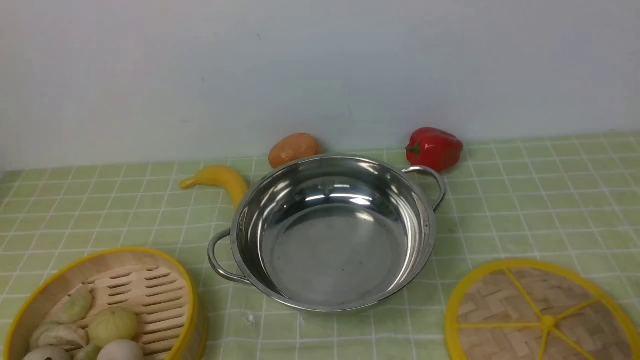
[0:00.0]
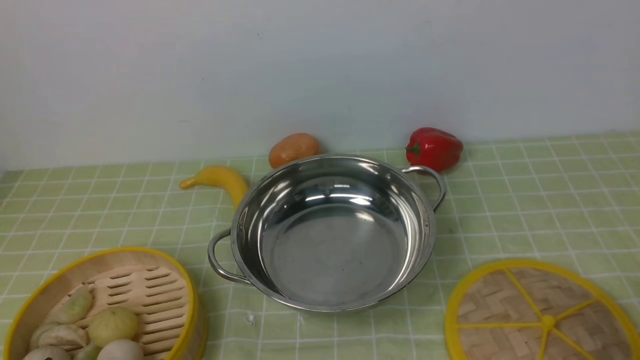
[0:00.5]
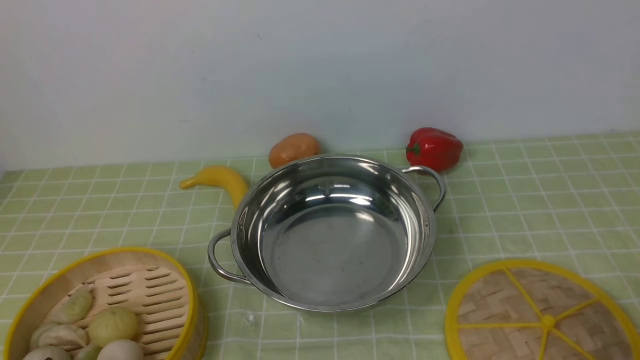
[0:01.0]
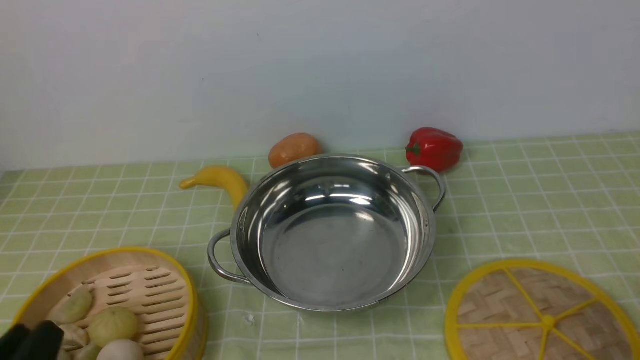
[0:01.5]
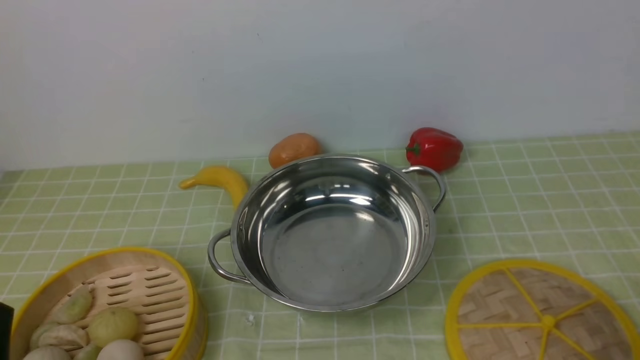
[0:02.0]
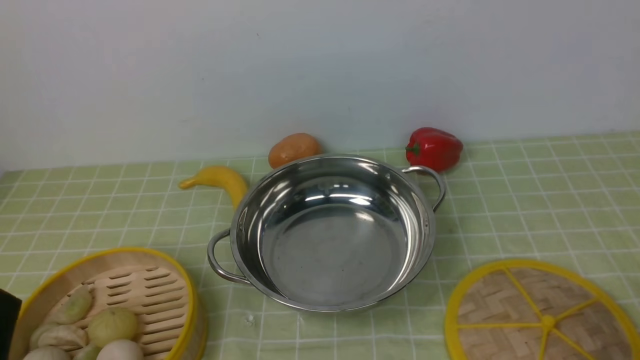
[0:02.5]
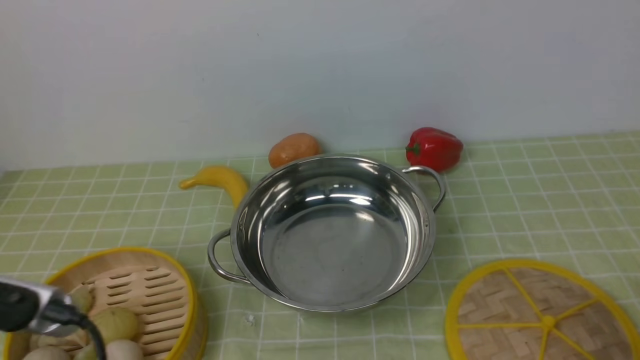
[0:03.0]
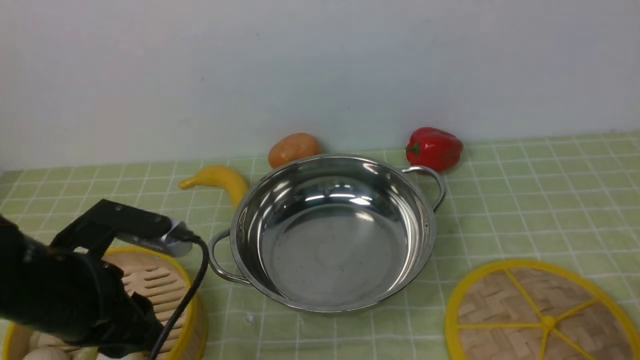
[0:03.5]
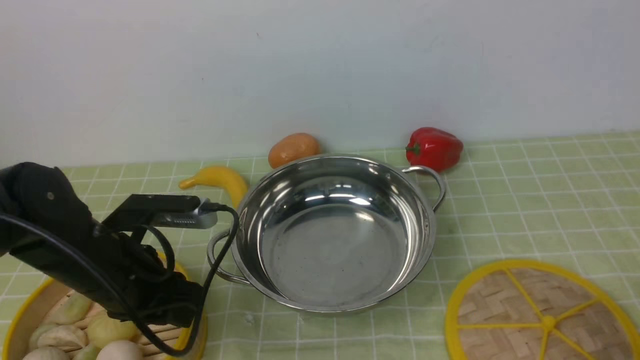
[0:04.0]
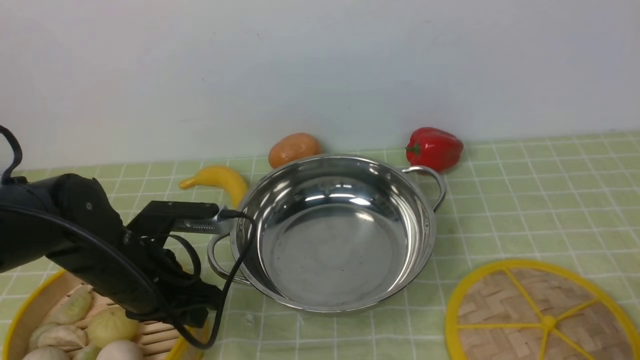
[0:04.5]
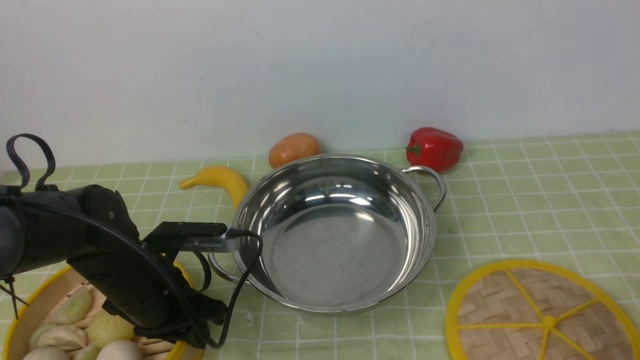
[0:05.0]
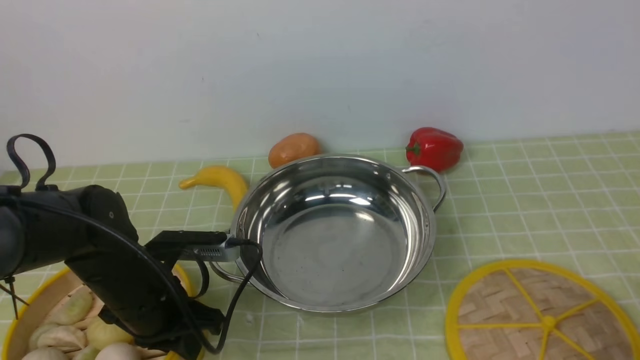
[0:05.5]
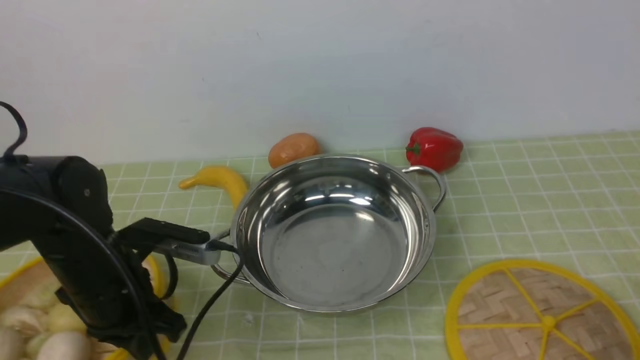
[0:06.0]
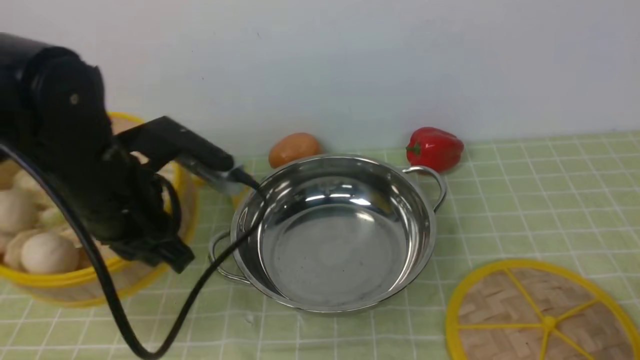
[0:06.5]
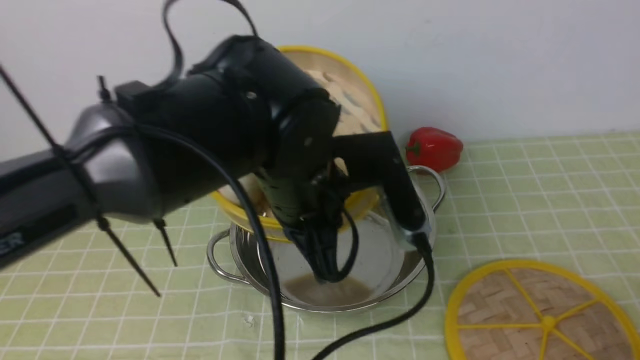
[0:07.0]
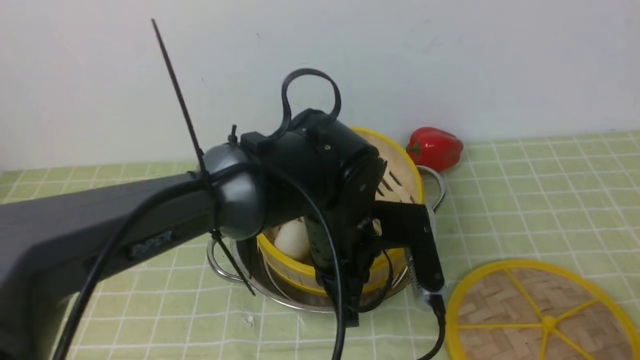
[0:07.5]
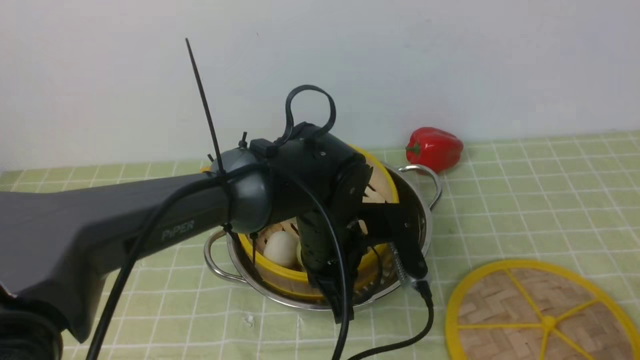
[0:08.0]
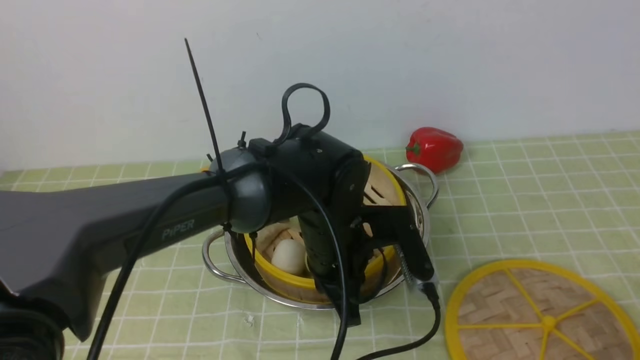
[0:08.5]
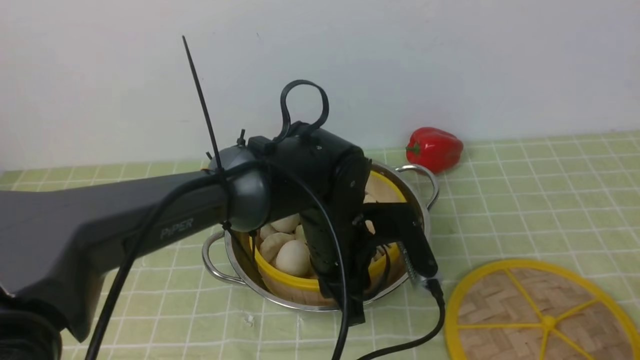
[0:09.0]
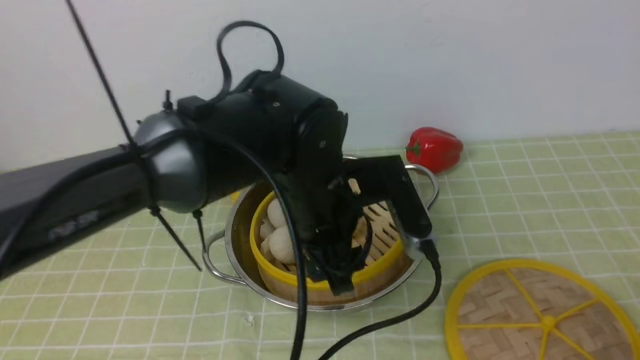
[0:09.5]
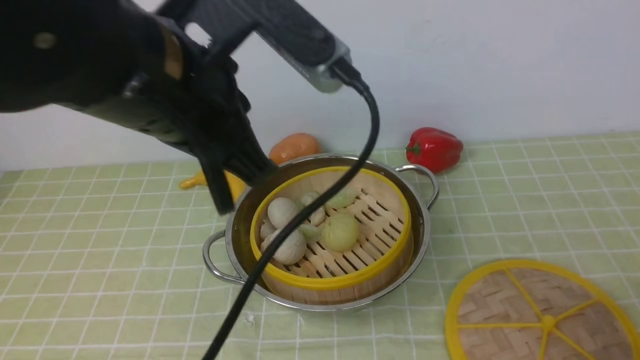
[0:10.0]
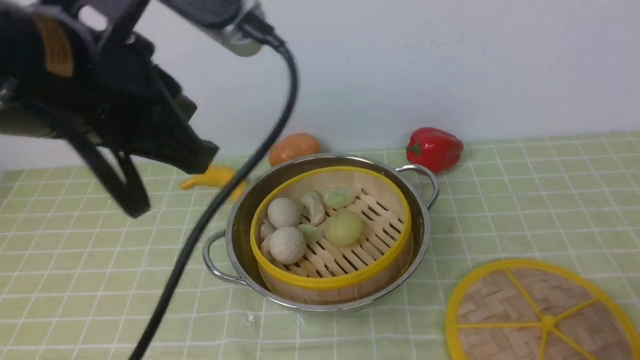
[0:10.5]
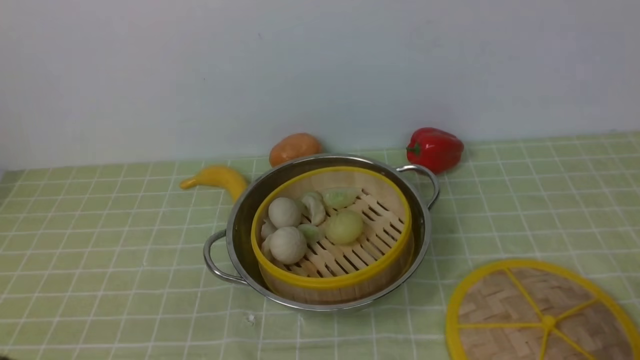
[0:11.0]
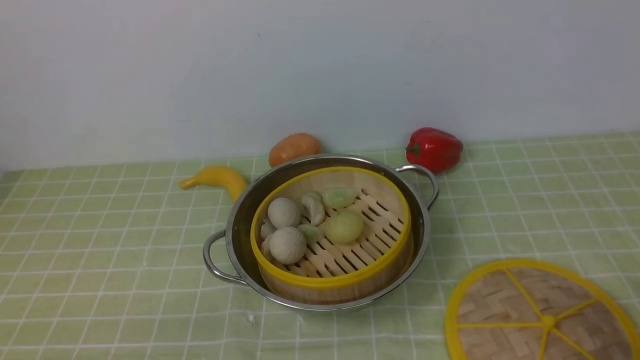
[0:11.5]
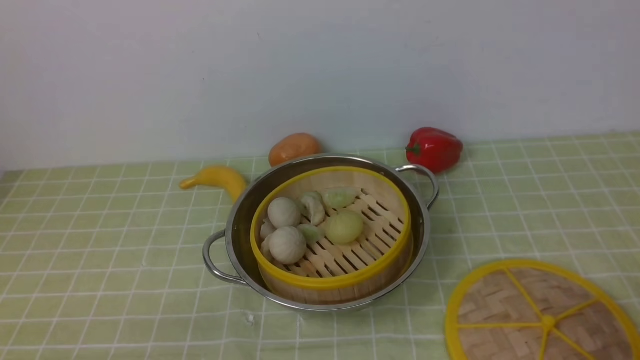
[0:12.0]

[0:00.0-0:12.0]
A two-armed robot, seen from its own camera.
Task of the whole recording: place the steamer in the pot on the green tablecloth, and put the lid on the steamer.
Step, 0:00.0 to 0:06.5: use the left arm to lift the steamer closest to it.
Step, 0:07.0 to 0:10.0: use the left arm to put the steamer into the iron steamer pot in the middle.
0:02.0 to 0:04.0: The left gripper shifts approximately 20 cm forward.
0:04.0 to 0:06.0: The left gripper closes up.
0:06.0 to 0:08.0: The left gripper goes roughly 20 cm to the right.
0:08.0 to 0:10.0: The left gripper travels upward and to the left by roughly 25 cm, and opens, then closes again.
0:10.0 to 0:12.0: The left gripper goes about 35 cm downward, backward and to the left.

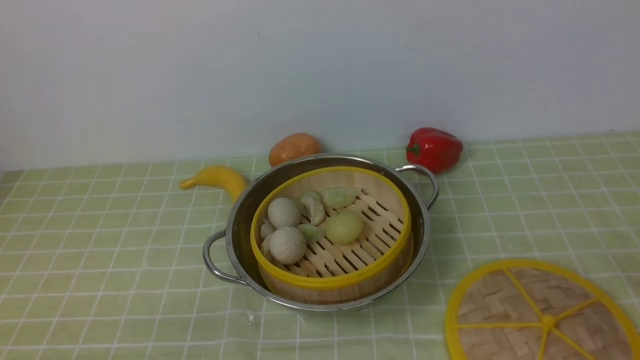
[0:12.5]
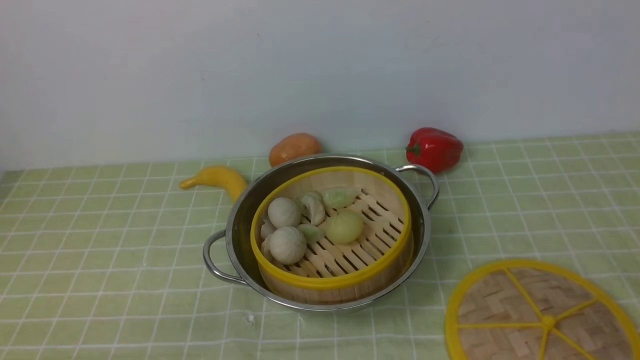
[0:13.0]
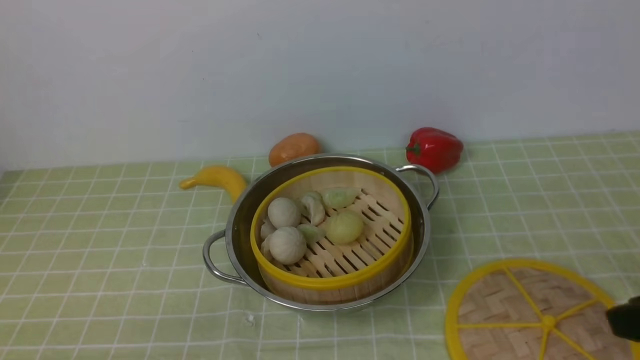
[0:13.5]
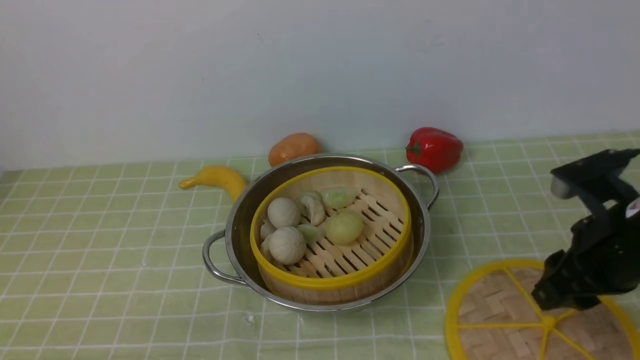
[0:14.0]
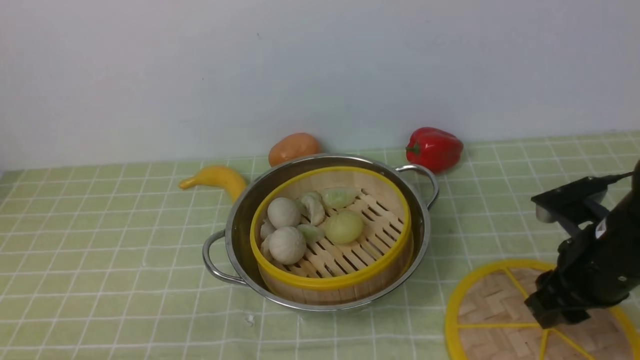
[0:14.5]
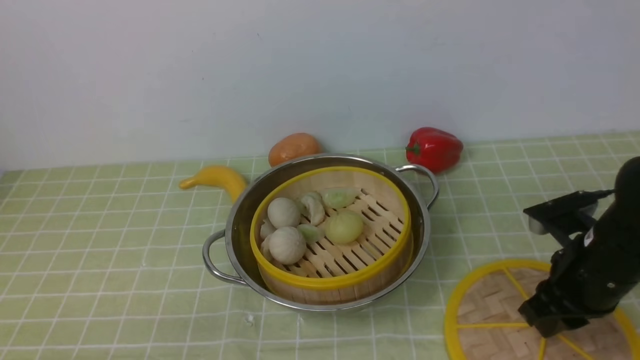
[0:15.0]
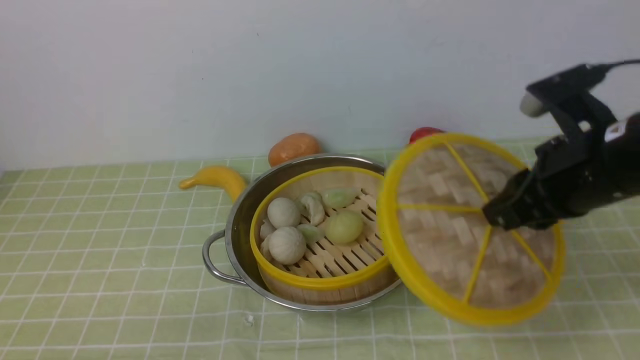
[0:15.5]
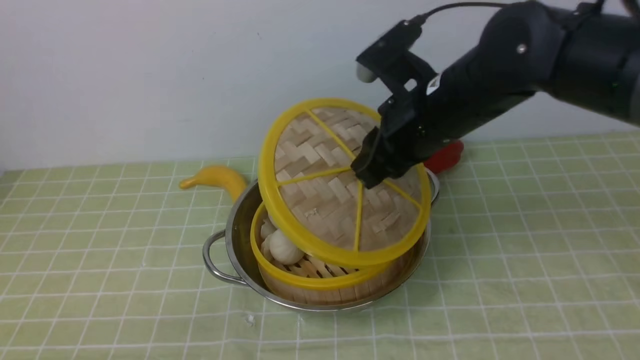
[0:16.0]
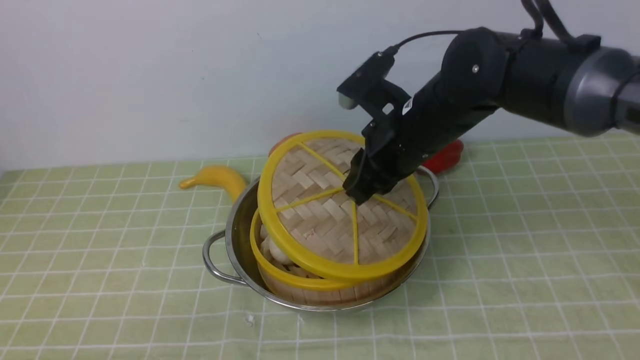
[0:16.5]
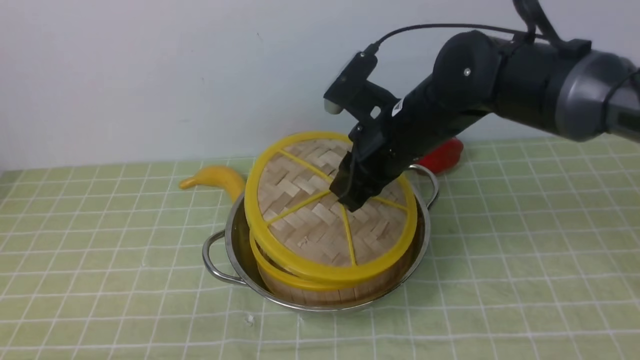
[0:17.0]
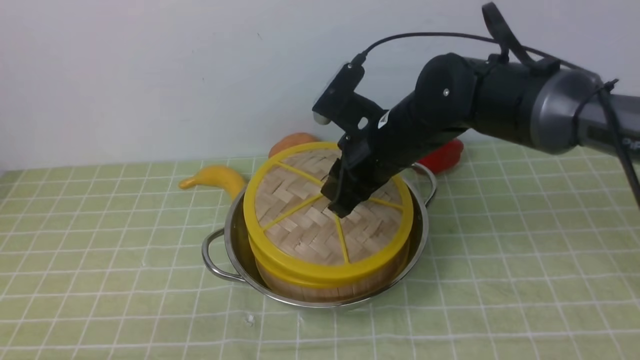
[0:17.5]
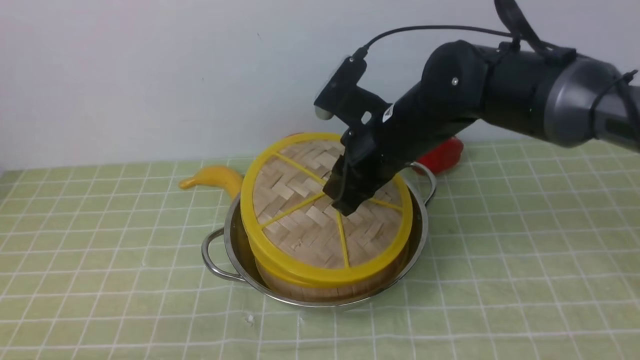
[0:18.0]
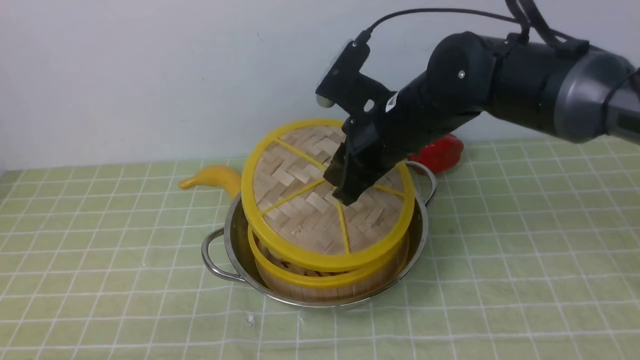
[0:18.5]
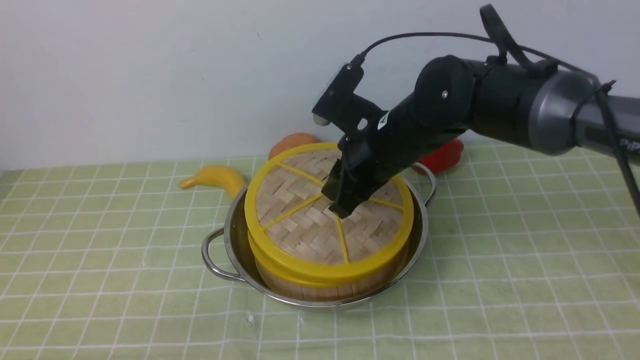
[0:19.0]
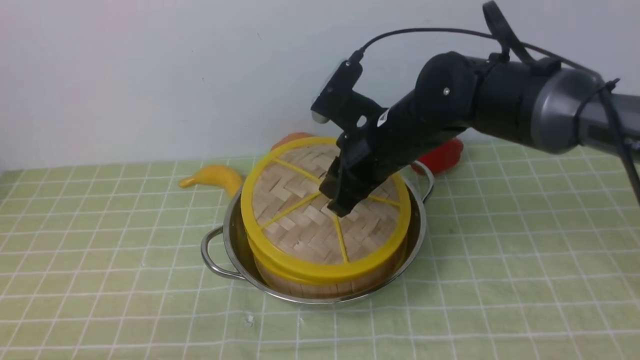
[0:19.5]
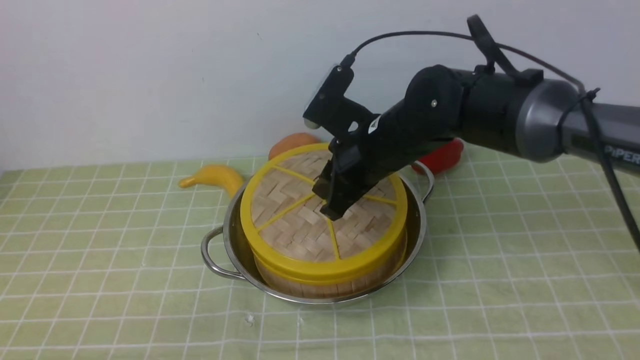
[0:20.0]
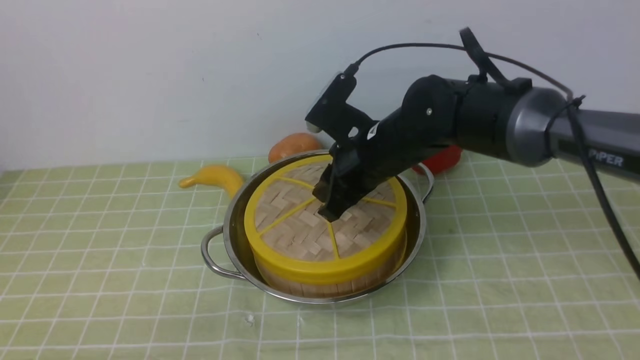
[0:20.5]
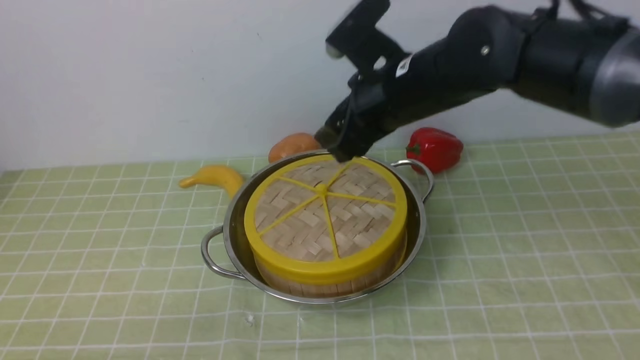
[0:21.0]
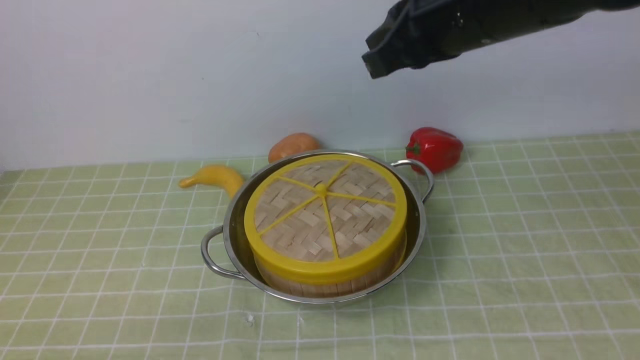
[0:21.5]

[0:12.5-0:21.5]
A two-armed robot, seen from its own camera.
Task of the whole recording: place the steamer in the pot on the green tablecloth, and put the lid on the steamer.
Step, 0:12.5 to 0:15.0: use the right arm to lift the lid of the steamer.
Step, 0:15.5 to 0:21.0: use the right arm to place the steamer lid on the steamer.
0:12.5 to 0:14.5: The right gripper shifts approximately 25 cm forward and downward.
0:14.5 to 0:17.0: The right gripper is displaced to the left and forward by approximately 20 cm, and closes.
0:17.0 to 0:19.5: The grippers stay close to where they were, moving slightly.
0:19.5 to 0:21.5: The right gripper shifts some 15 cm upward, and closes its fingers.
